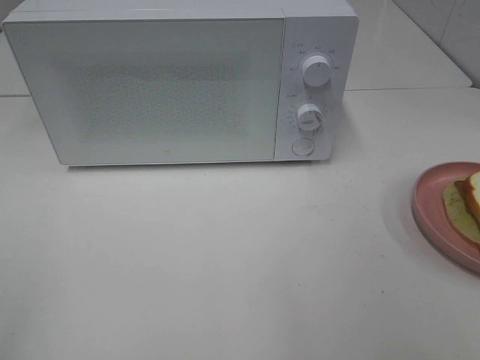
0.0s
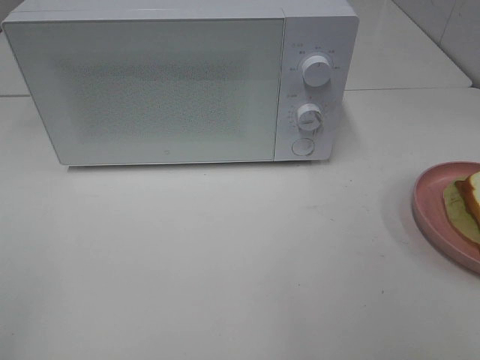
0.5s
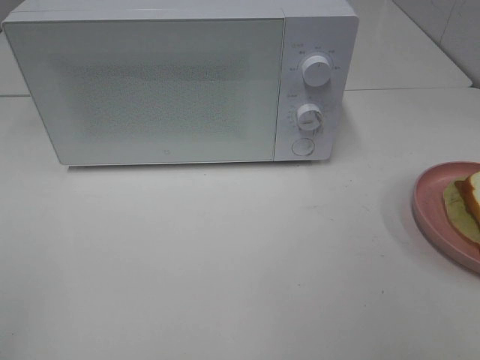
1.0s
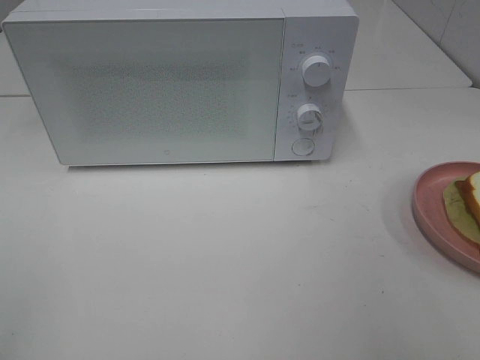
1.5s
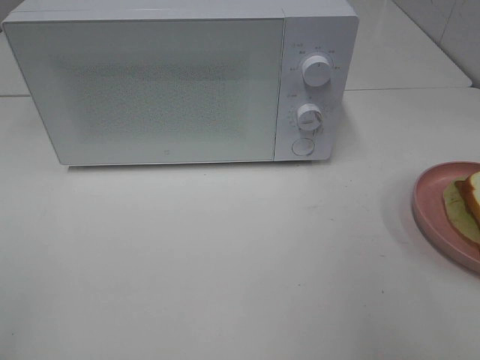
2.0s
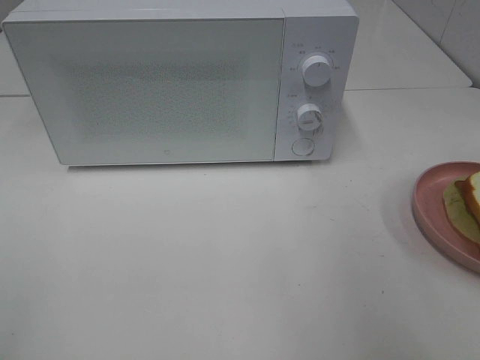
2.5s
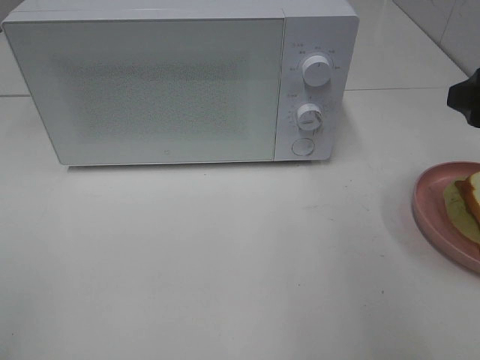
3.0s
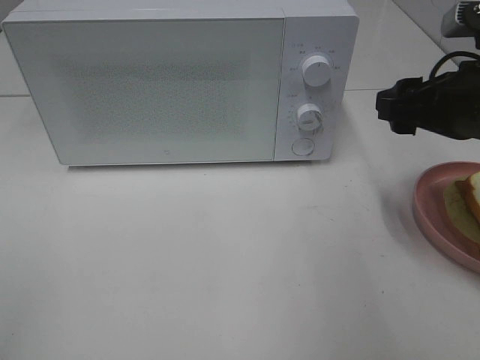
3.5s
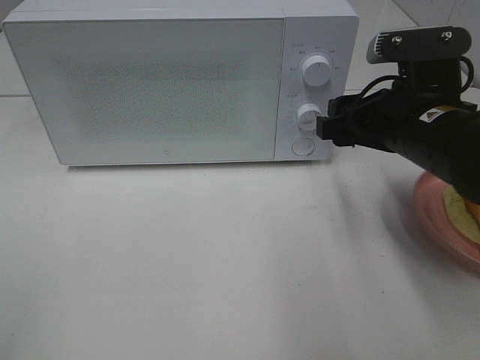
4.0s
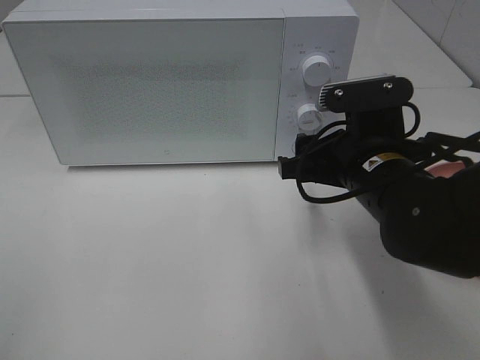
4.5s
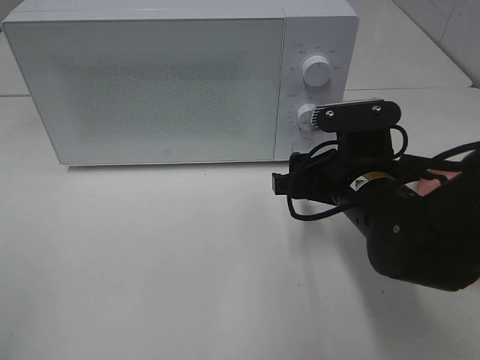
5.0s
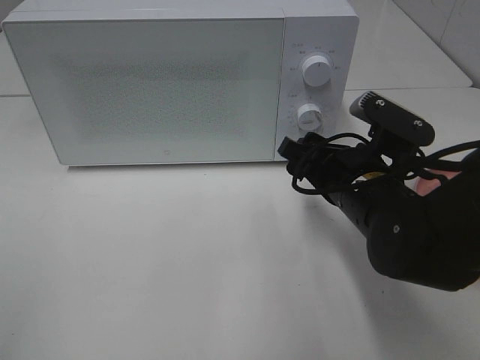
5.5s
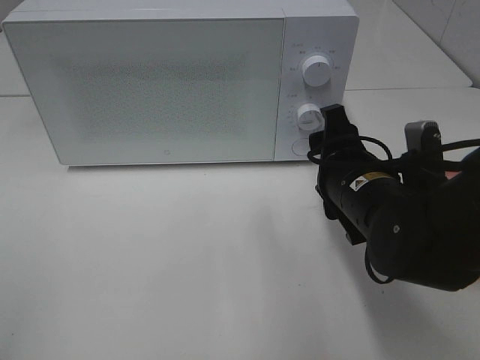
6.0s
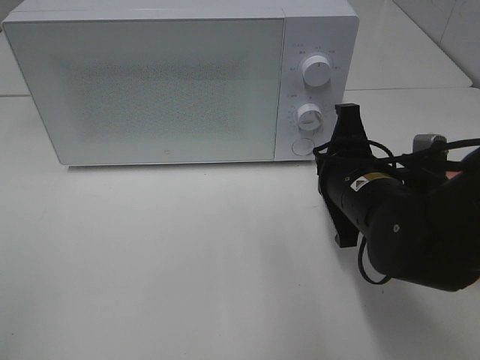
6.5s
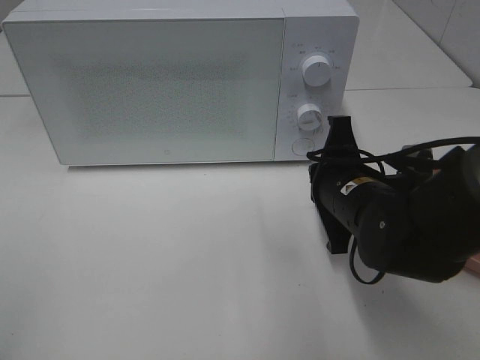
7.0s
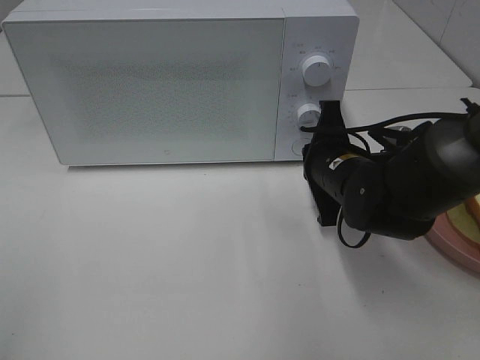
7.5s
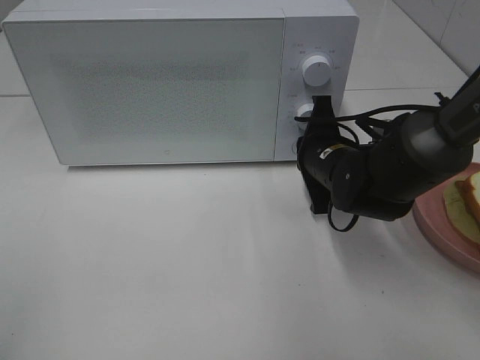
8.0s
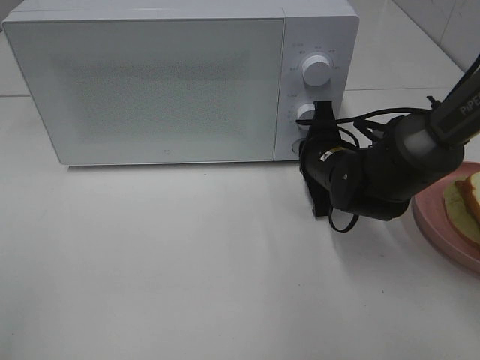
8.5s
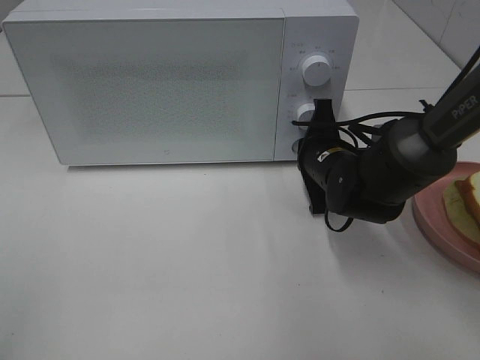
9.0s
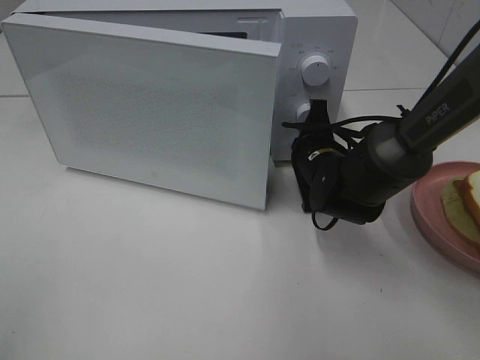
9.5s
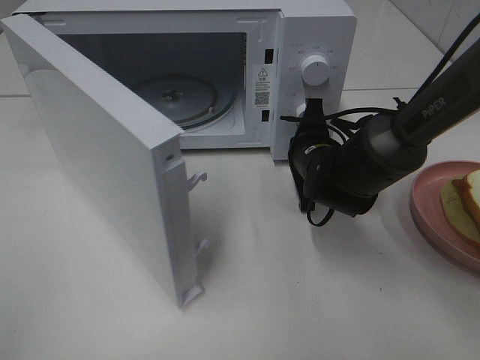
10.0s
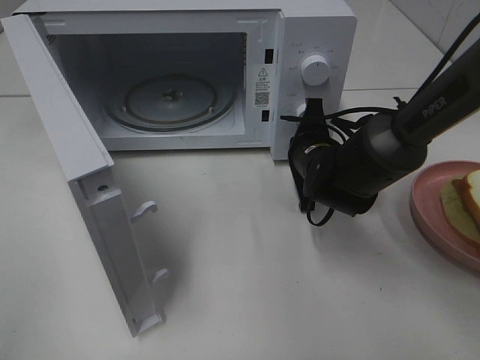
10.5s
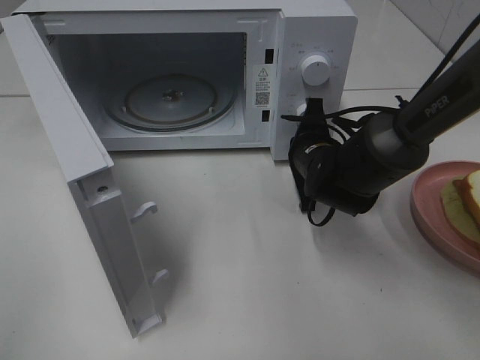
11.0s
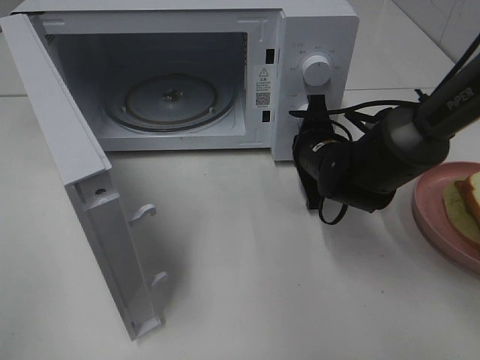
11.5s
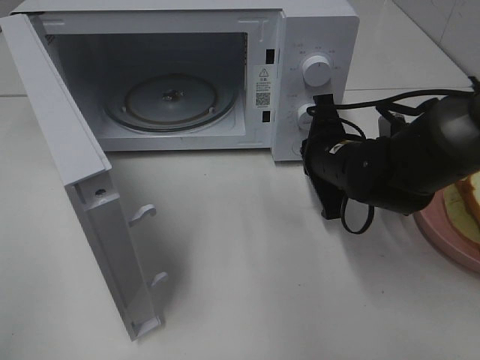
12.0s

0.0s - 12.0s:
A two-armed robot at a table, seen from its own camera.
Task of the whole recording: Heat Sandwich.
Step, 0.0s - 11.5s: Right hand: press the switch.
2.0s - 4.0s: The right gripper travels forward, to the left and downward by some 20 cm.
4.0s - 6.0s: The right gripper heads downward, covering roughly 5 cm.
6.0s - 8.0s: The right gripper goes some 10 cm forward, and closes up.
10.0s - 12.0s: The right gripper shifts by some 5 cm.

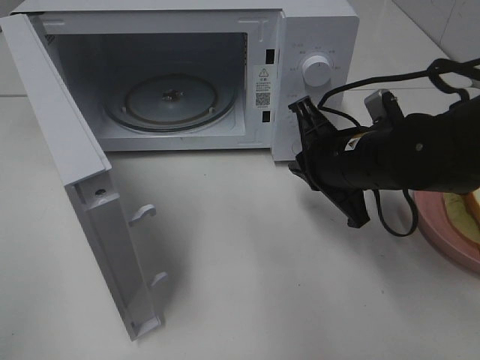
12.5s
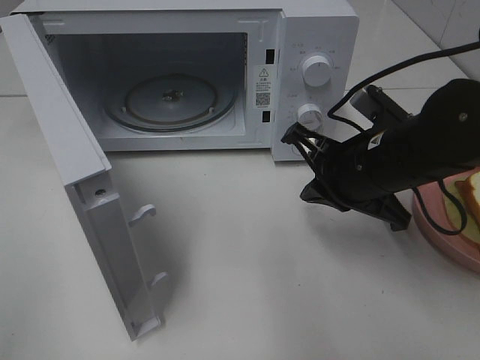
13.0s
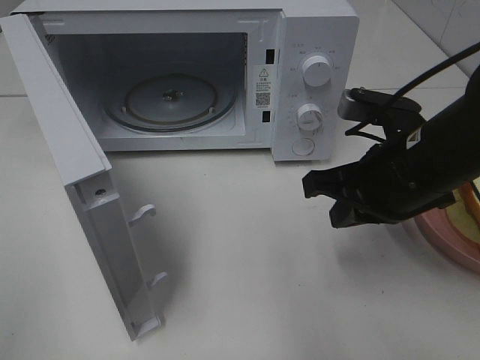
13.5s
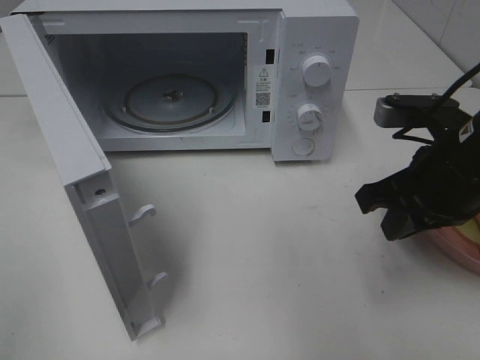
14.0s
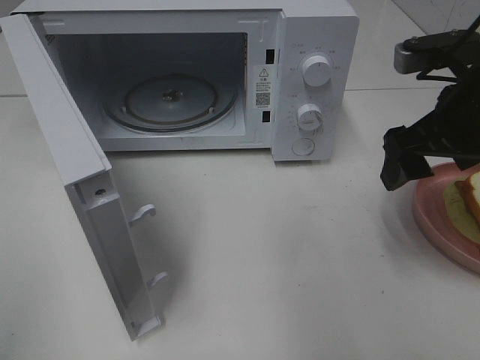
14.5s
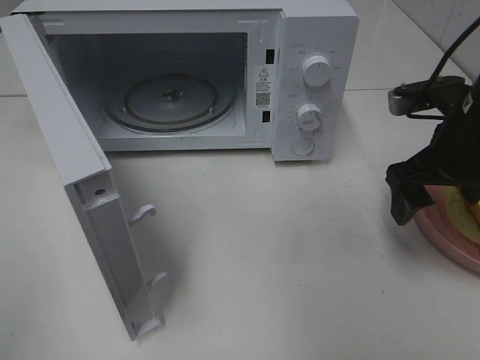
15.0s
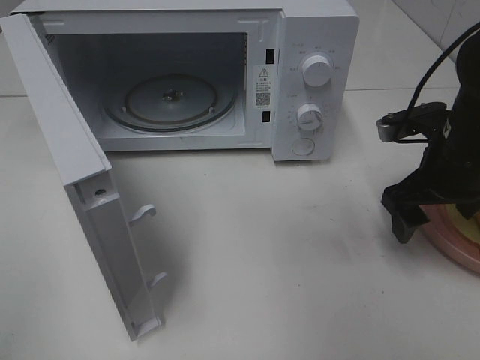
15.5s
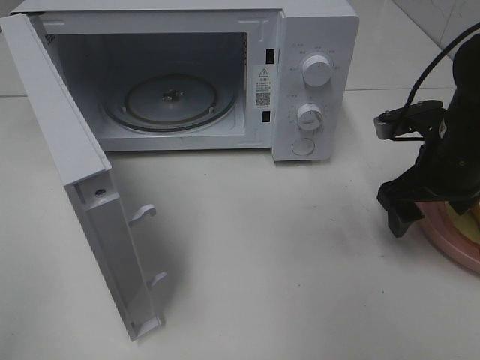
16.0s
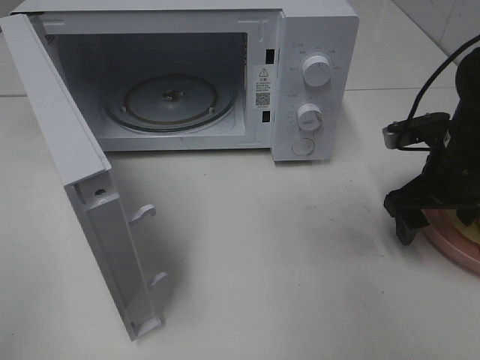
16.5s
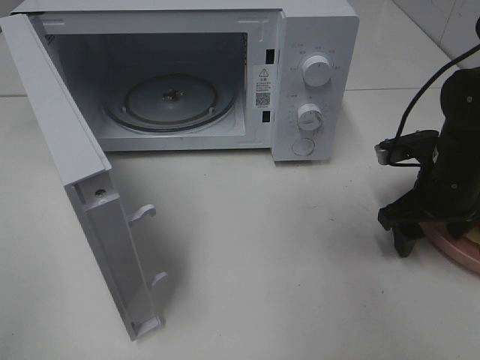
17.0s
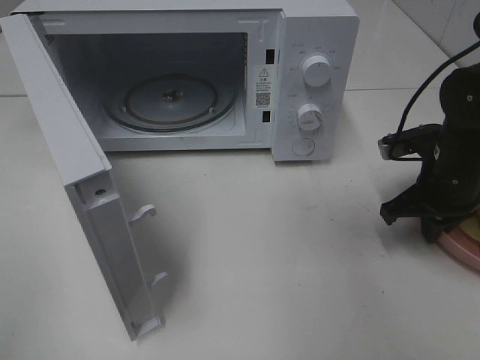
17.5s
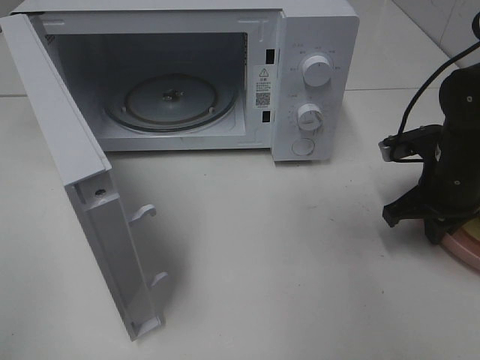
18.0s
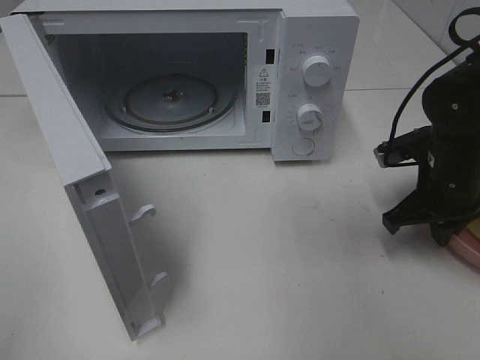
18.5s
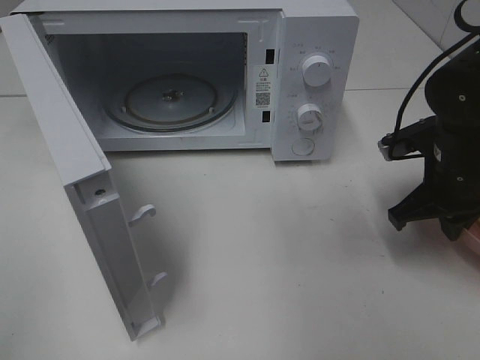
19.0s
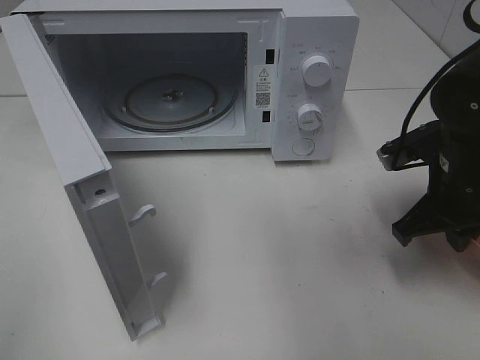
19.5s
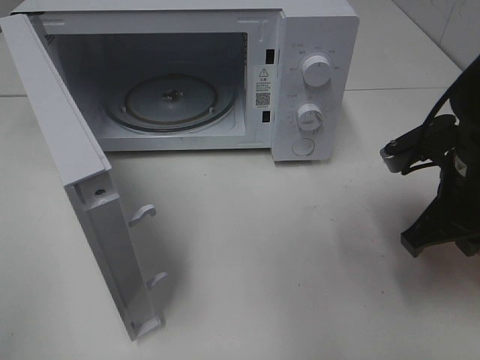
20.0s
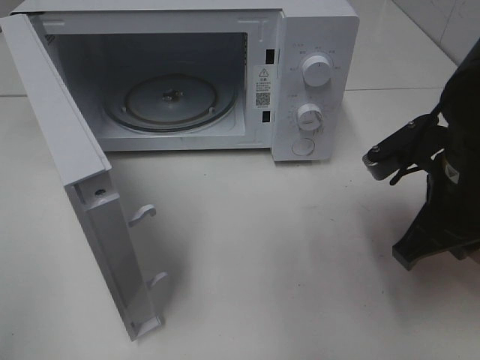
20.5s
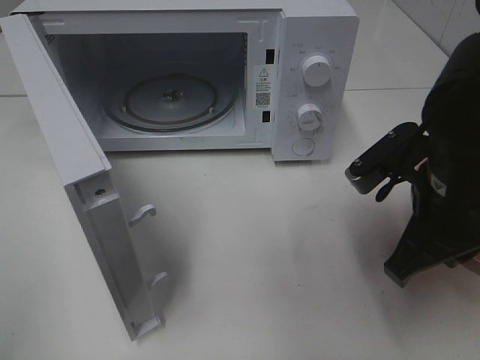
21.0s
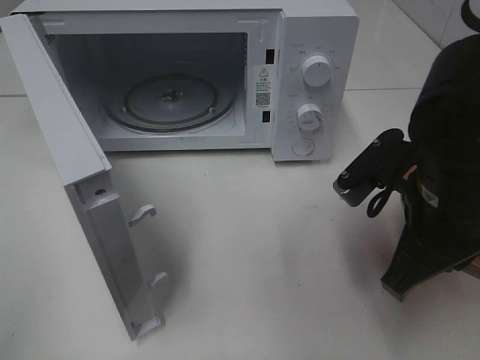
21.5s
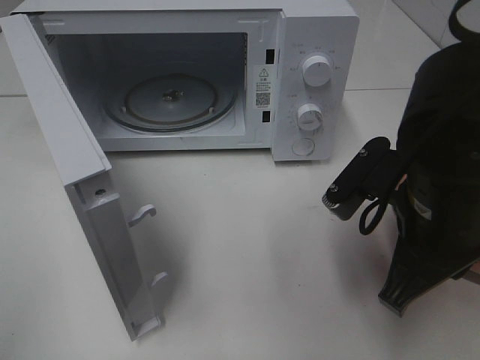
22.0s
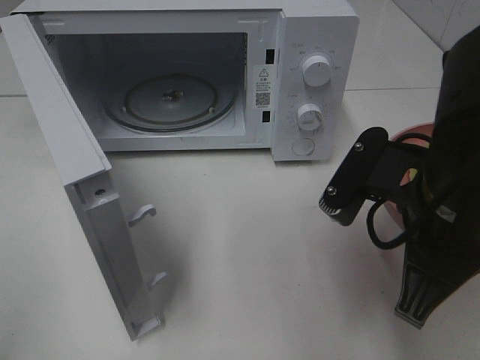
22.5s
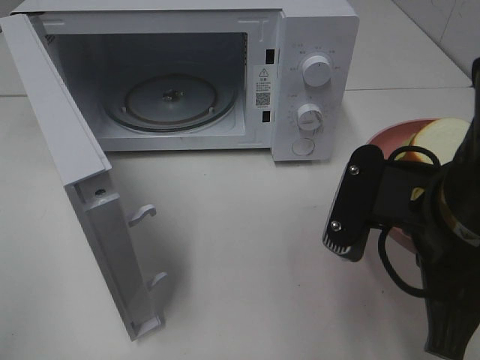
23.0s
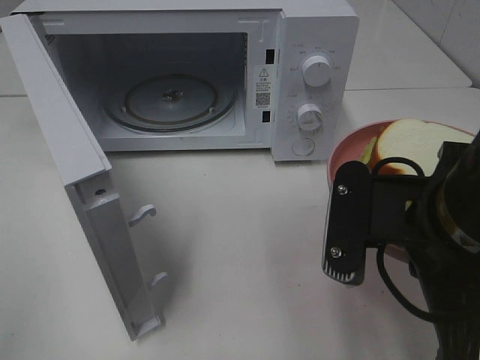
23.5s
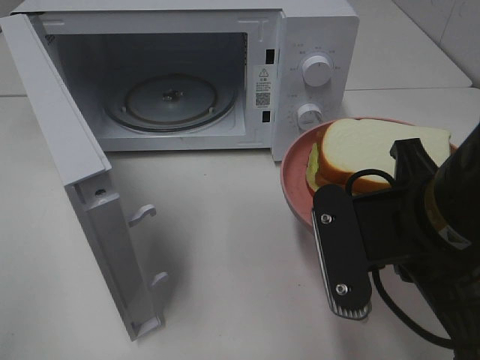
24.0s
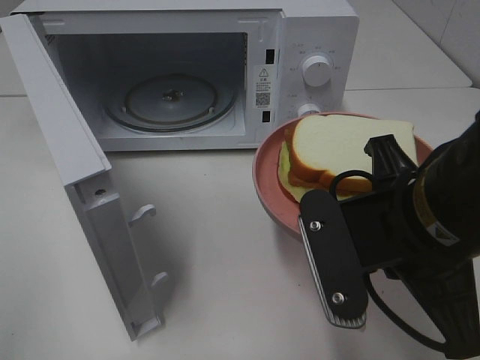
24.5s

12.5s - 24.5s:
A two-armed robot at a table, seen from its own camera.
Task of the whole recording: Heat Sandwich.
Step, 12.5s - 18.0s: Right hand: grab the plate with the sandwich.
12.5s - 14.5s: The right gripper goes about 15 cm upward and to the right, and opens its fingers.
14.5s - 16.5s: The right gripper goes some 10 cm downward.
16.5s - 18.5s: The right gripper closes.
18.5s - 20.5s: The right gripper travels backward, upward and to the left by about 10 cm.
20.5s - 22.5s: The right gripper shifts about 5 cm backward and to the left.

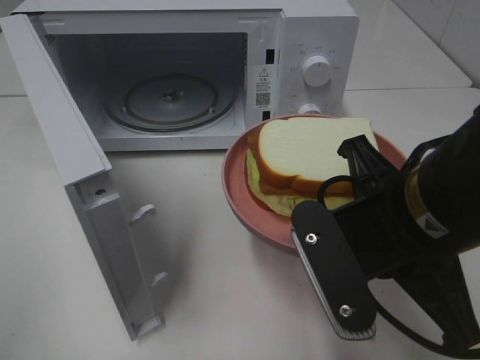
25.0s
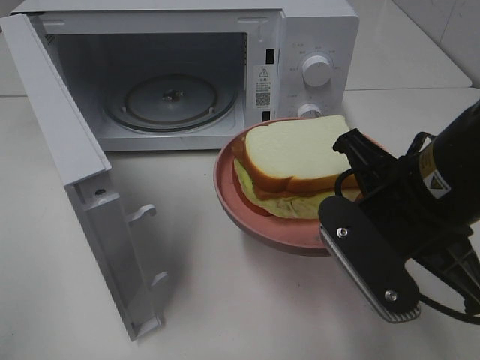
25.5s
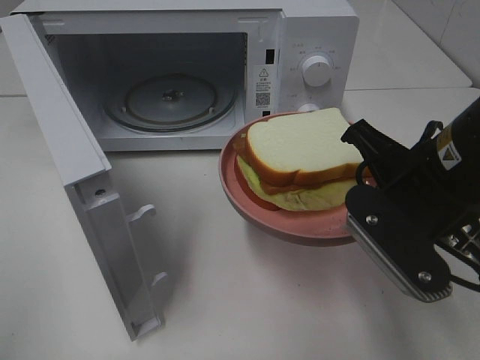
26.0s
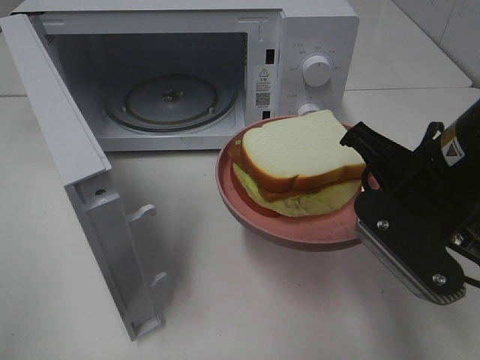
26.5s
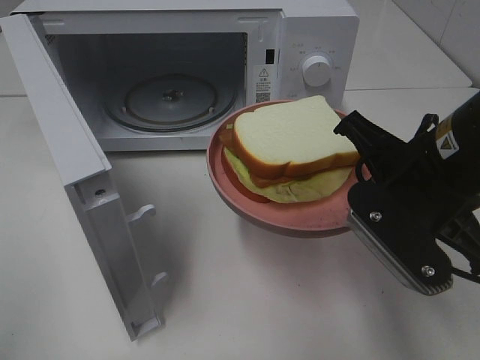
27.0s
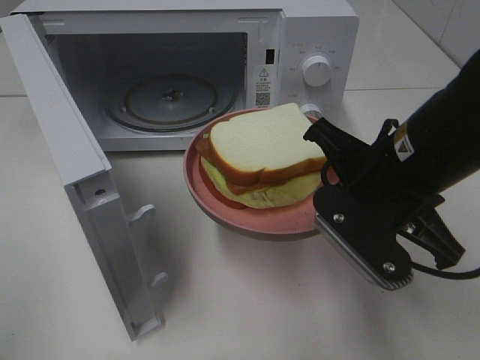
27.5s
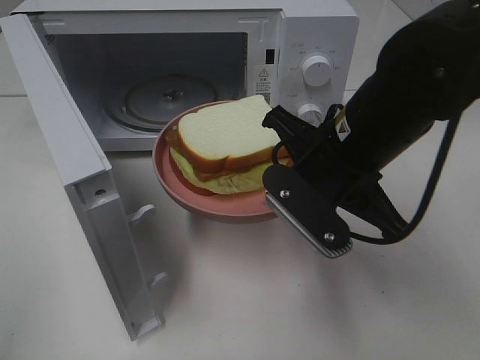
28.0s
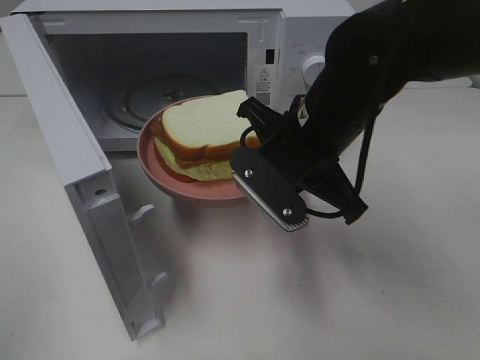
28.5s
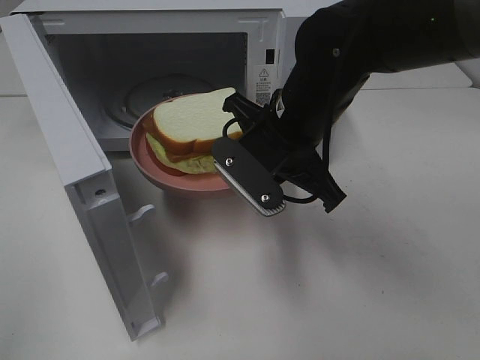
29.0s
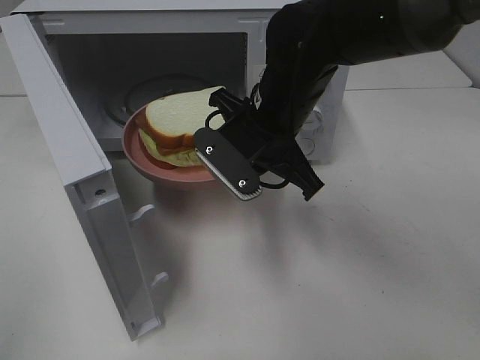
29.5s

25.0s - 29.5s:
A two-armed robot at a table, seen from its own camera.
Task of the whole recording: Heat Sandwich.
25.0s - 27.0s: The right gripper moves roughly 5 cm.
27.0s - 29.5s: The right gripper moves forward and to the left, approximately 15 cm.
